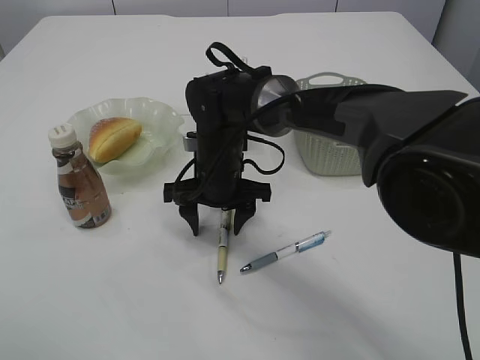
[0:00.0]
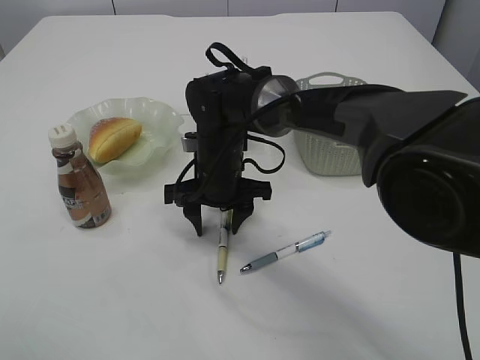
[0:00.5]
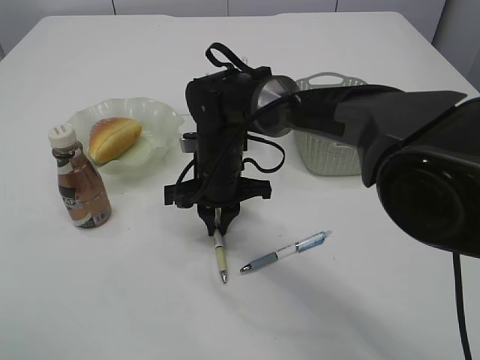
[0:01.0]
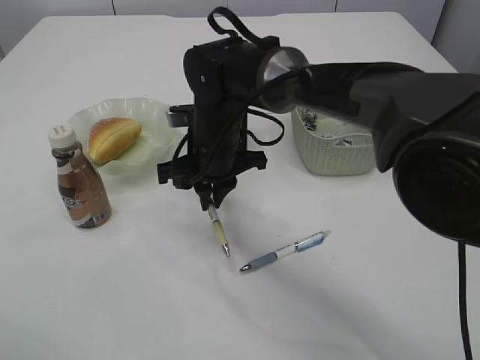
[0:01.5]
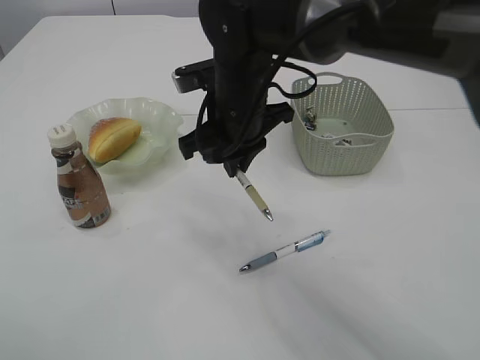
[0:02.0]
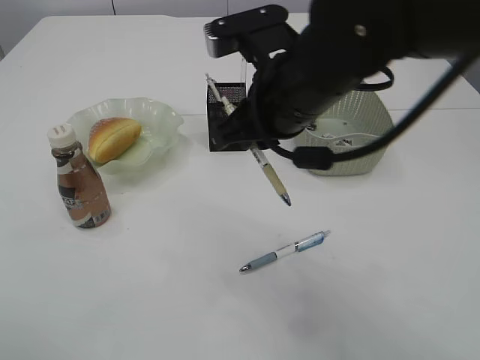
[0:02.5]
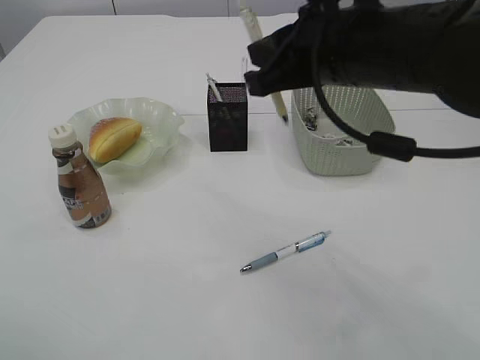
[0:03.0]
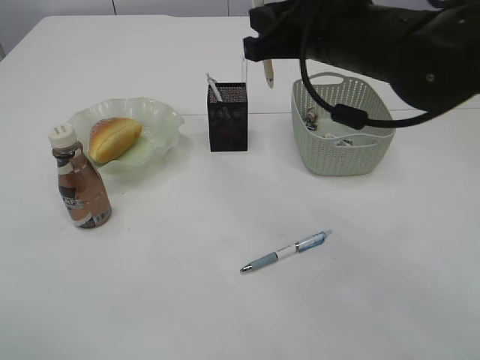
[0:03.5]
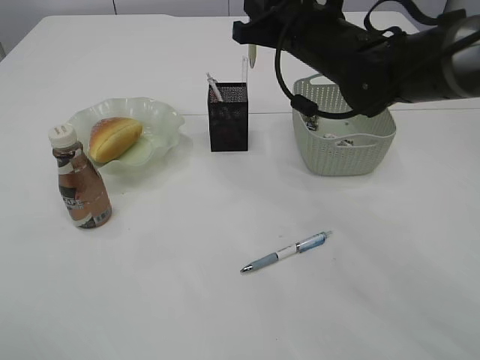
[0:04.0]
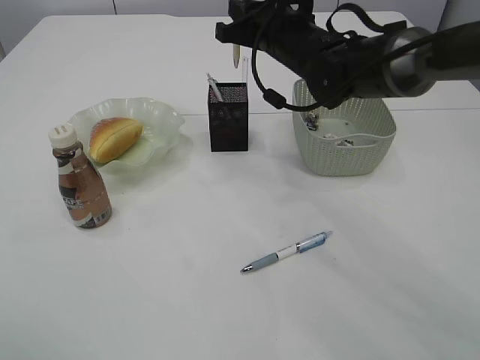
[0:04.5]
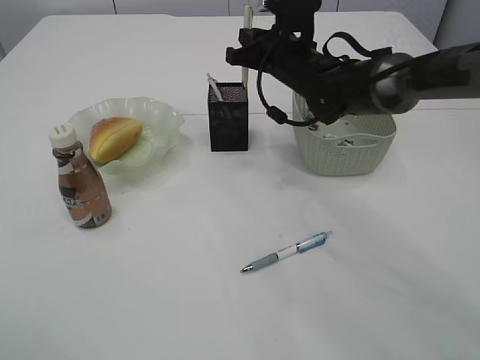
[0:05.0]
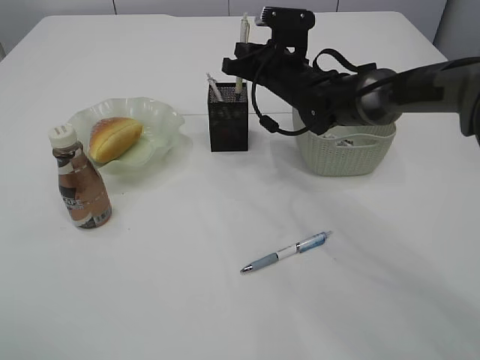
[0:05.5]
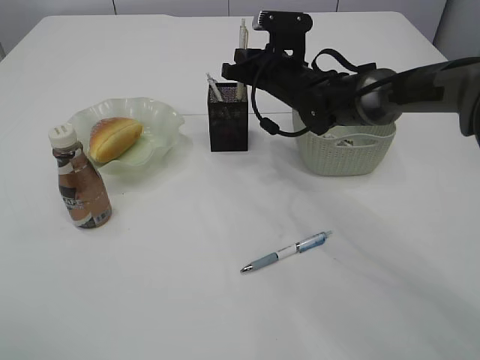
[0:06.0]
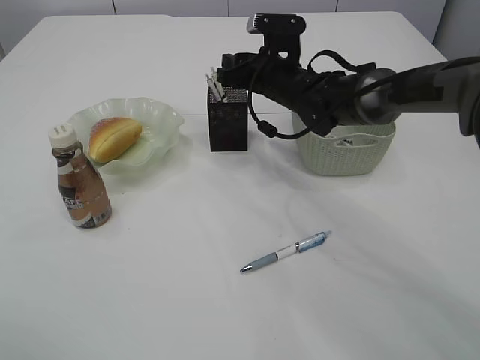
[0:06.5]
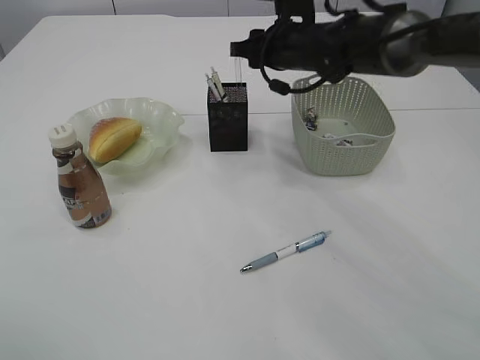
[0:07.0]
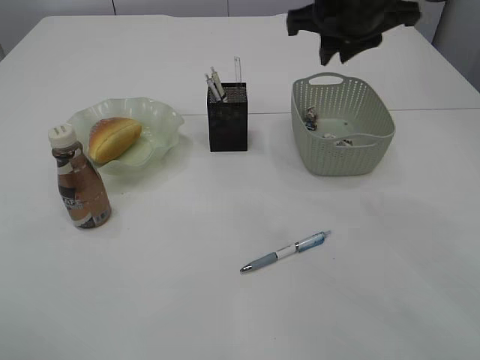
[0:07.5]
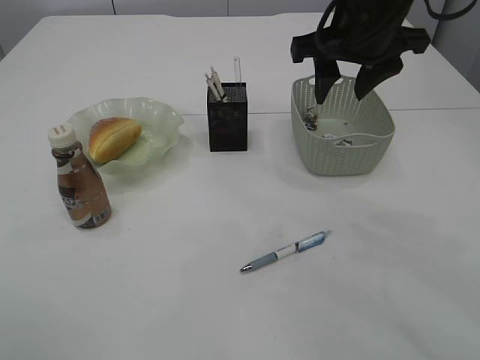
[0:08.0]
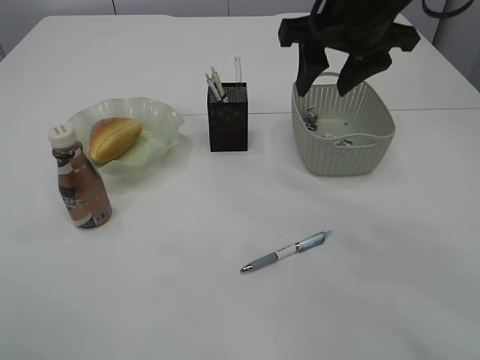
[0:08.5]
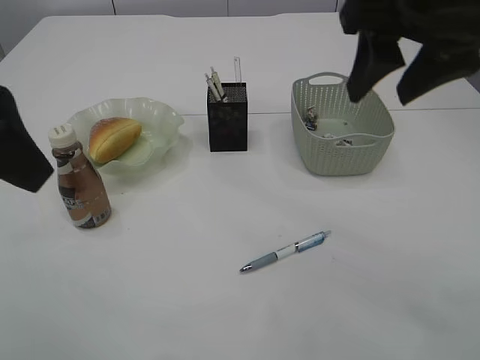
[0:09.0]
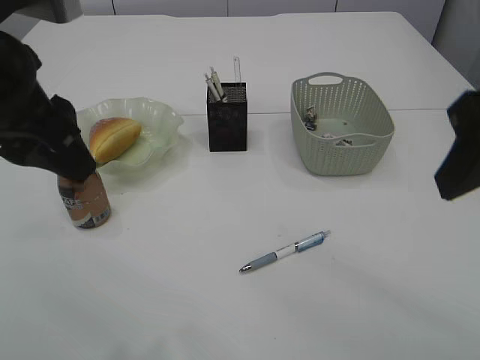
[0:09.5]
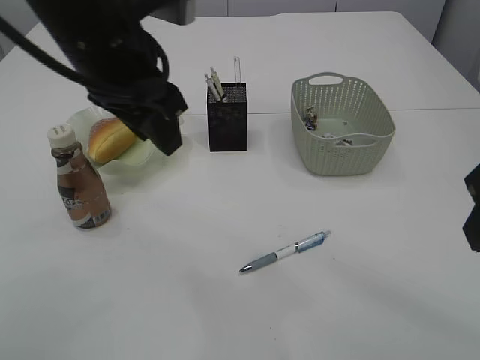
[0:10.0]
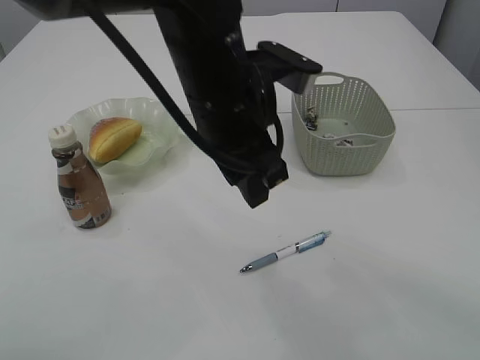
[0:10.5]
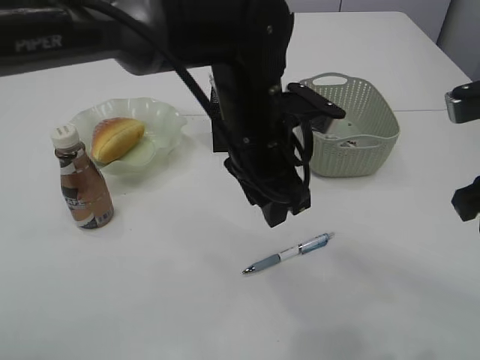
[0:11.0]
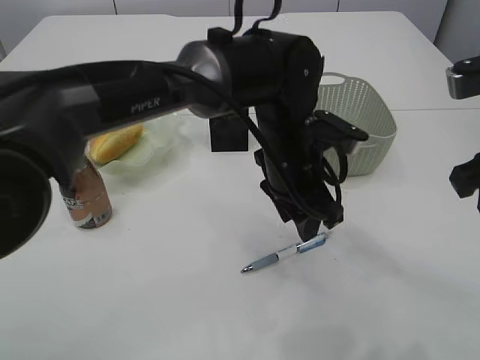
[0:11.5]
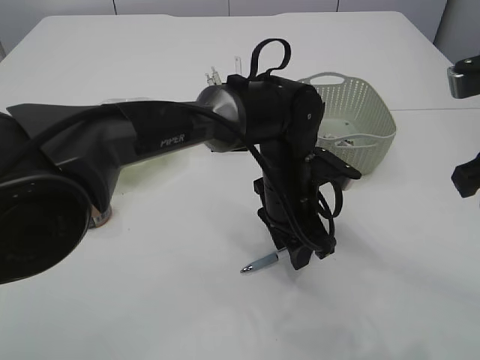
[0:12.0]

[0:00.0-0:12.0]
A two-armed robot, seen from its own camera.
Step, 0:02.0 to 0:07.0: Place the pen into the pen holder.
0:00.0 to 0:02.0: The right gripper moves upward, approximately 10 cm, and closes.
0:02.0 to 0:04.0: The right gripper shifts approximately 10 cm to the right, and goes backward and returns, roughly 10 cm each way.
0:04.0 to 0:06.0: The right gripper heads downward and forward, covering approximately 15 cm.
0:06.0 to 0:08.0: The right gripper goes approximately 20 cm upward and backward, and opens.
0:08.0 to 0:10.0: The left gripper moves to the right, forward and downward, some 20 cm; the right gripper shifts about 20 cm backward.
0:10.0 to 0:12.0: The left gripper travels downward and to the right by about 25 cm. The right gripper shifts by approximately 5 cm.

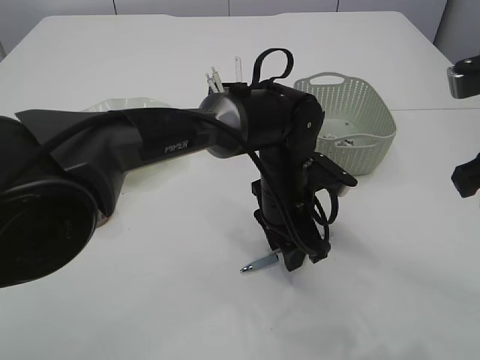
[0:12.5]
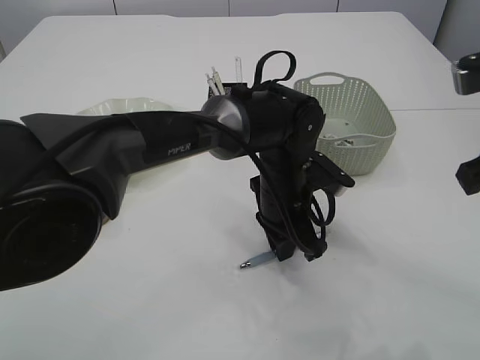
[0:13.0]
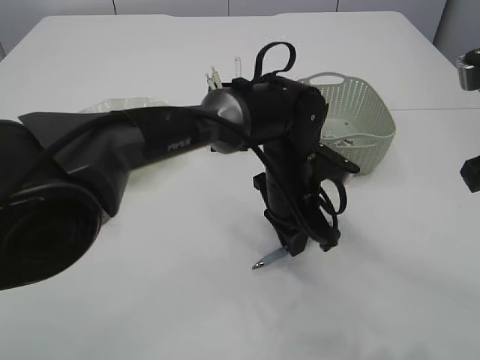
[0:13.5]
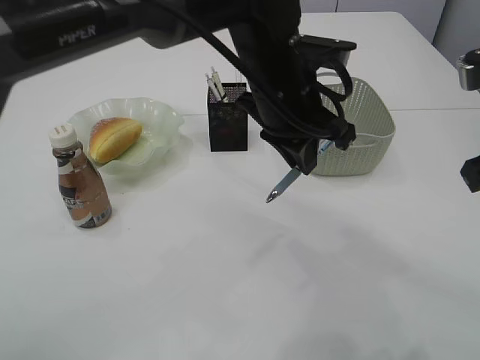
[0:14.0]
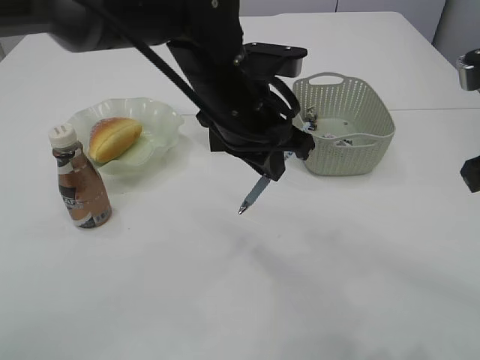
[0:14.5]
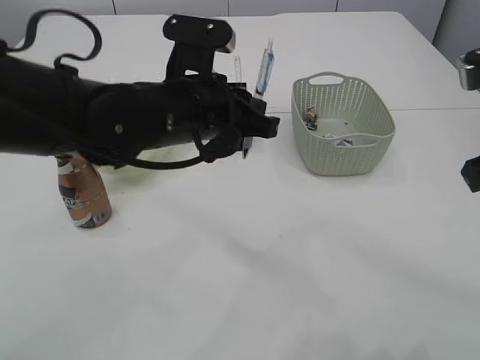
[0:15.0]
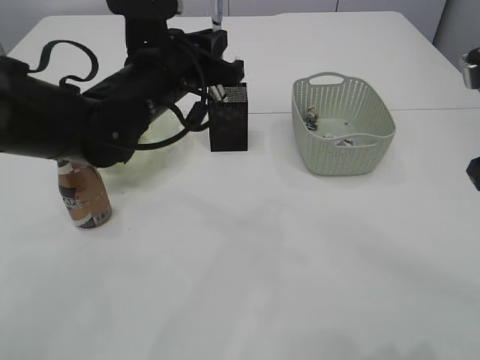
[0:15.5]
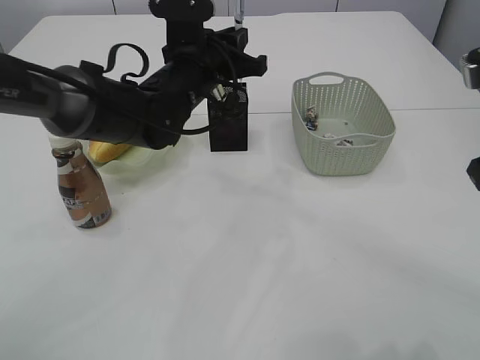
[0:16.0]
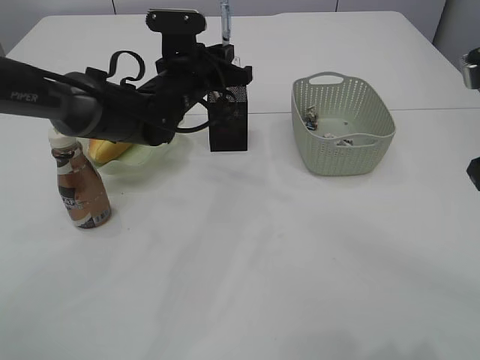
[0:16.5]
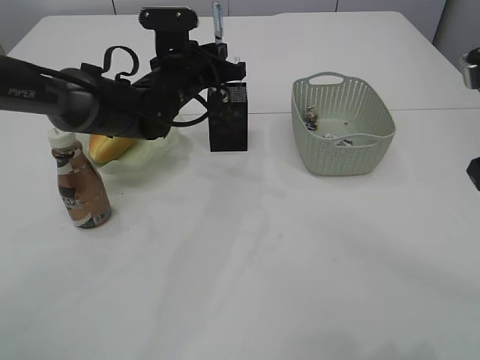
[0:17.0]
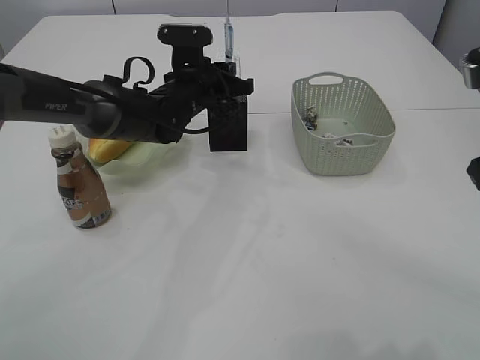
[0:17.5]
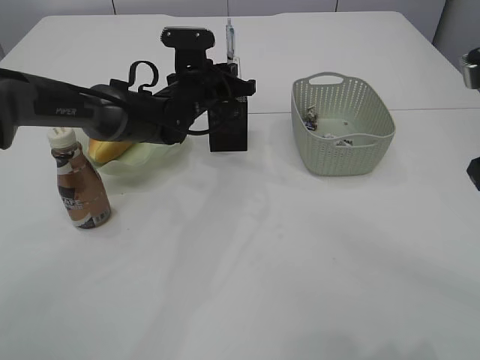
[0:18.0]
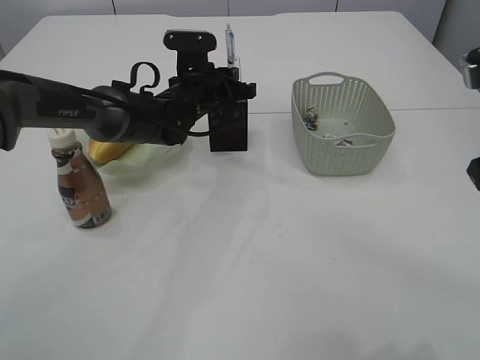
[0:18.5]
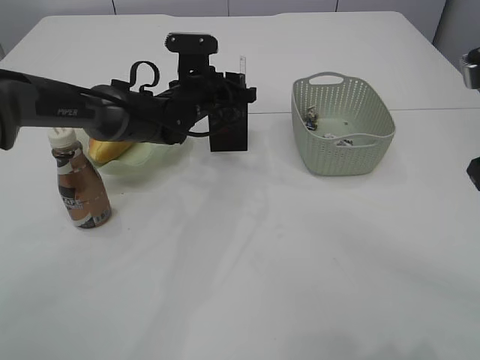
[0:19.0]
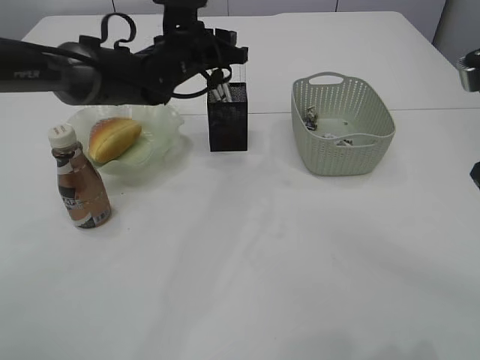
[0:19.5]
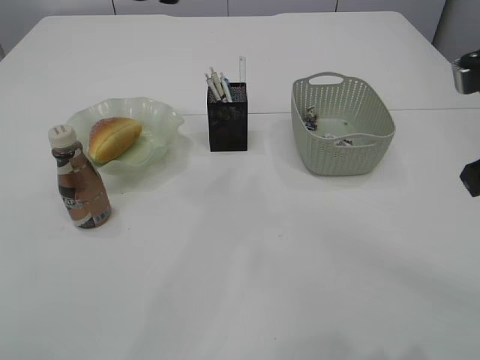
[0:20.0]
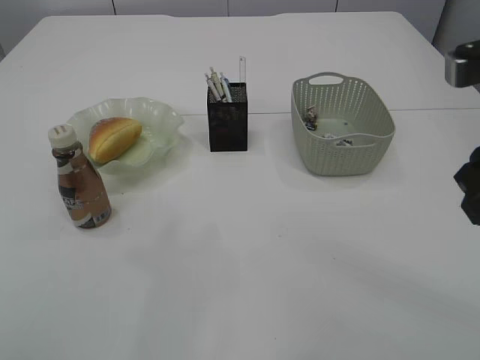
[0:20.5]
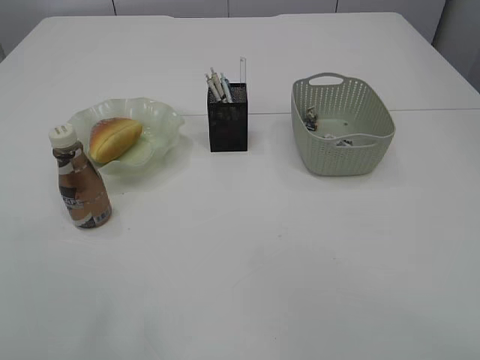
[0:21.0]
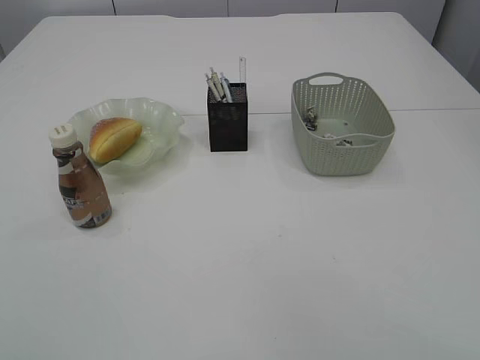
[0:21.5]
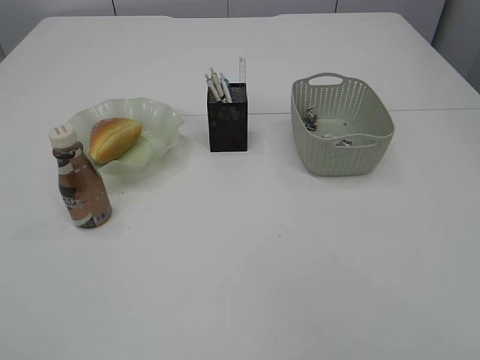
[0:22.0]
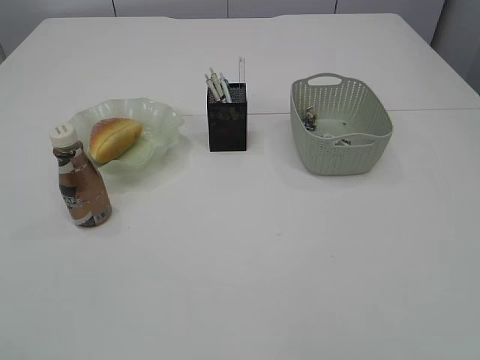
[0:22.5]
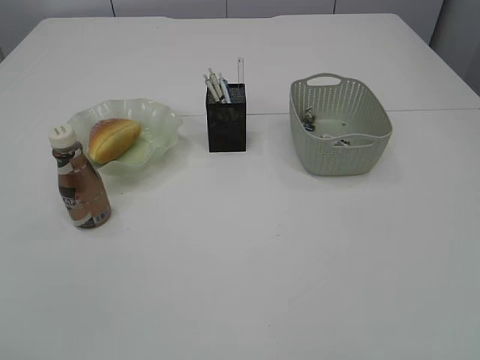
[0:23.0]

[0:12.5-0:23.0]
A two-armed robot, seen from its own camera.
Step, 0:14.0 to 0:19.5: Place the pen into the pen holder.
0:12.5 to 0:14.5: The left gripper heads upward and to the left, covering about 15 cm, and closes its fingers.
0:14.5 to 0:16.5: The left gripper is displaced forward, to the left and downward by about 15 cm.
0:16.5 to 0:19.0: The left gripper shifts by roughly 5 cm, and opens up.
0:19.0 to 0:21.0: The left gripper shifts roughly 40 cm upward, backward and to the left, while the right gripper heads backward and upward, covering roughly 10 cm.
0:21.0 to 0:23.0: The left gripper travels backward and downward by roughly 35 cm. Meanwhile the right gripper is displaced backward, downward and to the right by about 20 cm.
